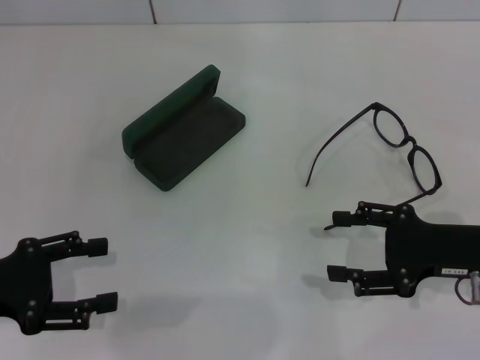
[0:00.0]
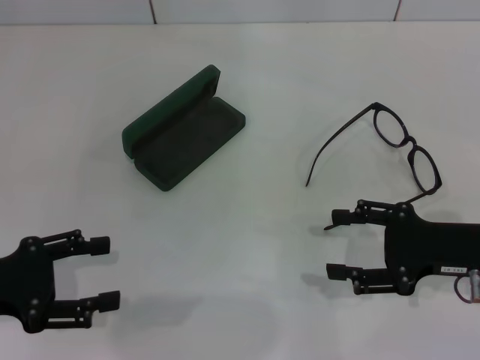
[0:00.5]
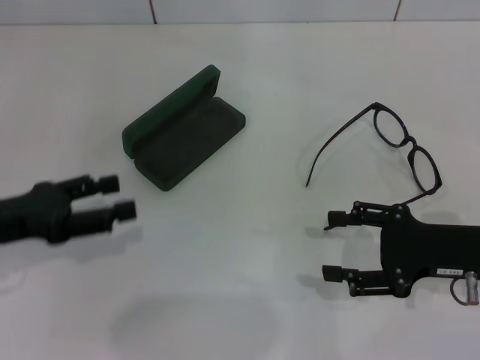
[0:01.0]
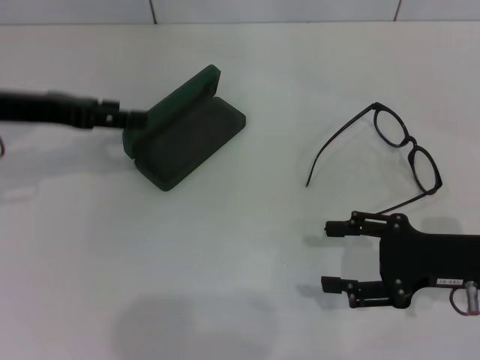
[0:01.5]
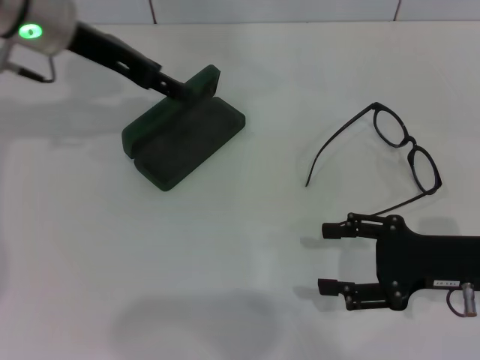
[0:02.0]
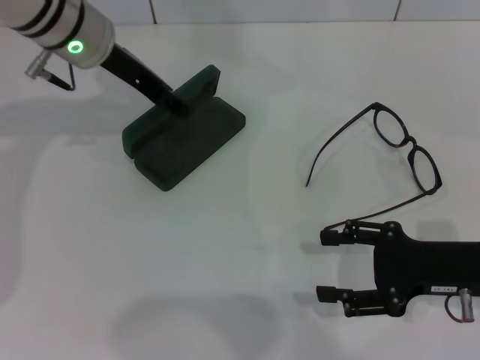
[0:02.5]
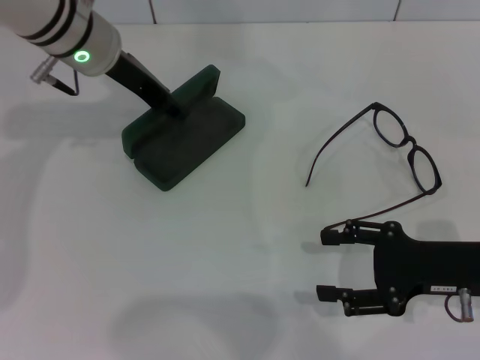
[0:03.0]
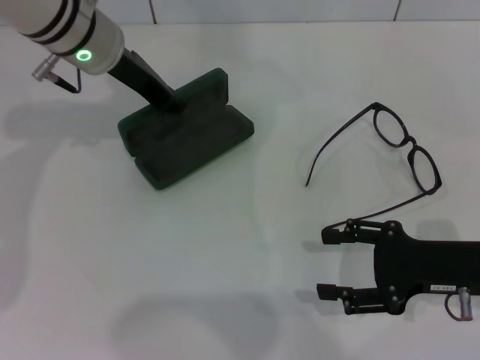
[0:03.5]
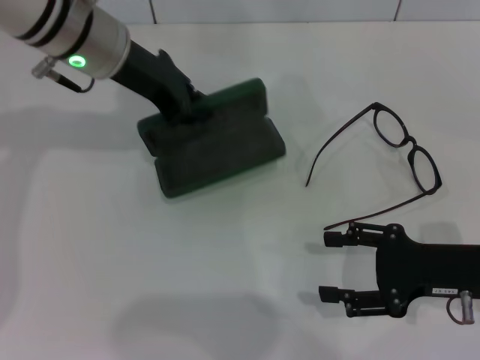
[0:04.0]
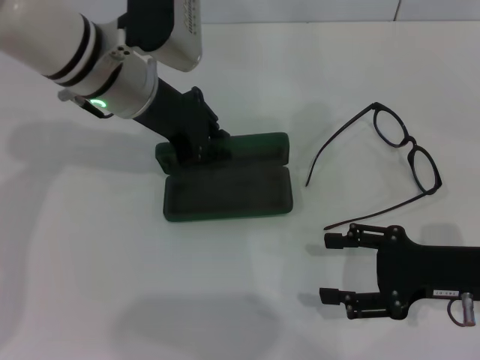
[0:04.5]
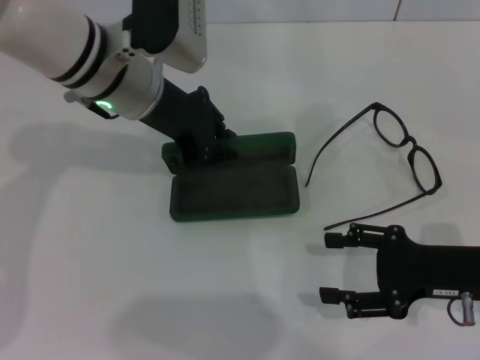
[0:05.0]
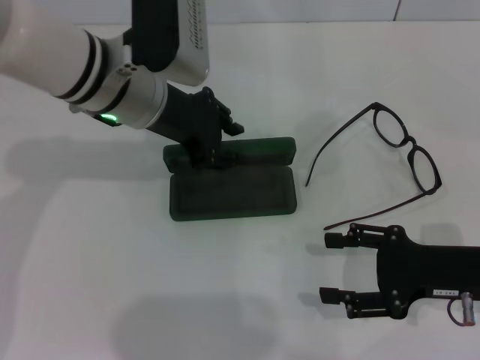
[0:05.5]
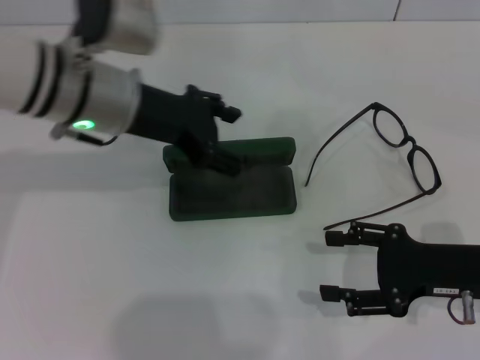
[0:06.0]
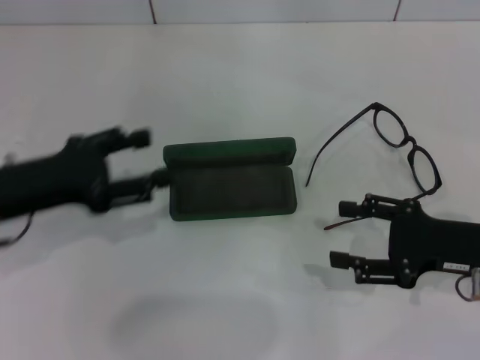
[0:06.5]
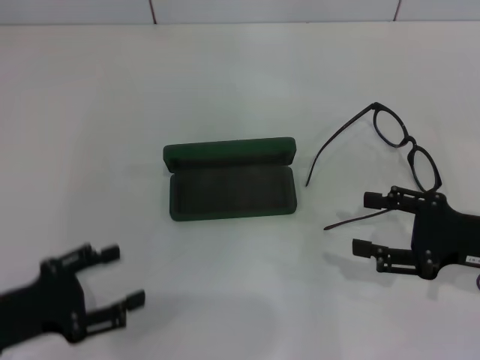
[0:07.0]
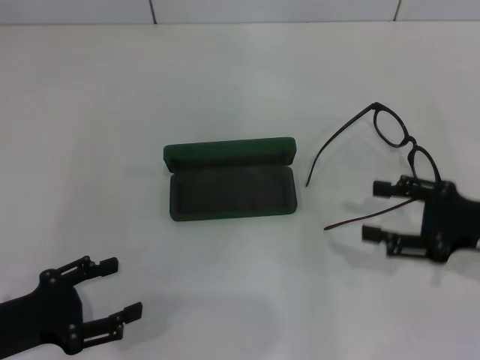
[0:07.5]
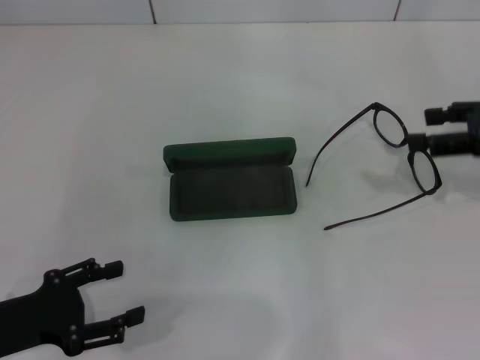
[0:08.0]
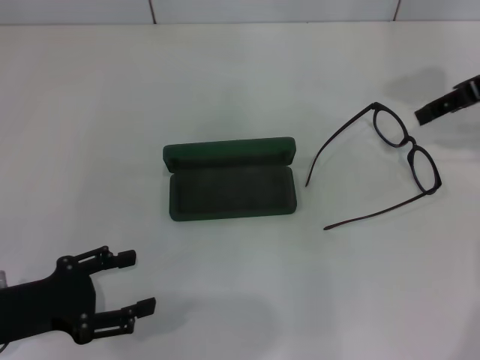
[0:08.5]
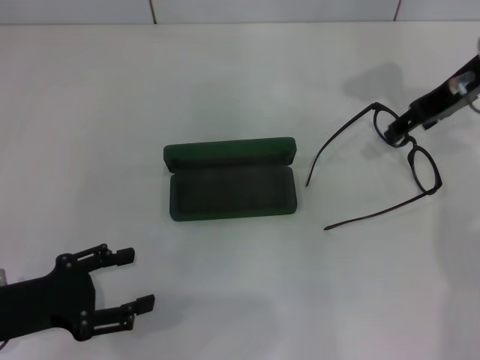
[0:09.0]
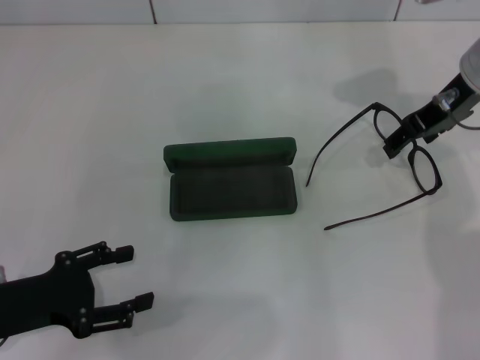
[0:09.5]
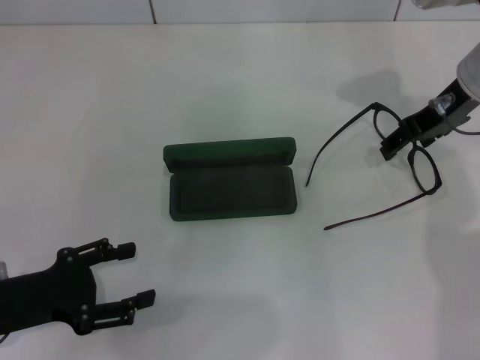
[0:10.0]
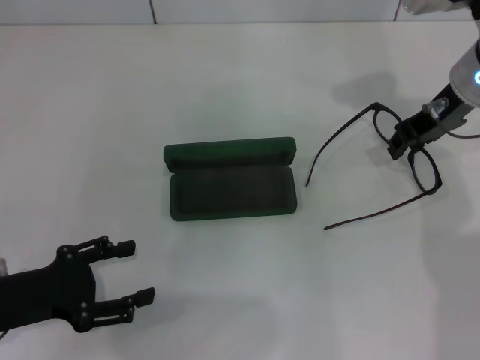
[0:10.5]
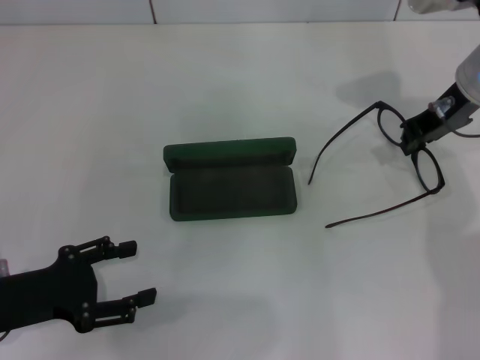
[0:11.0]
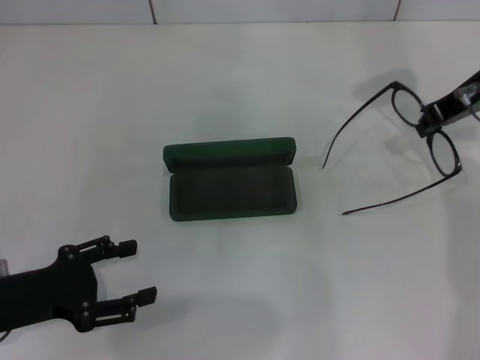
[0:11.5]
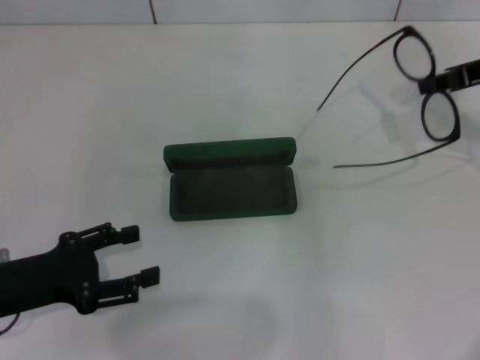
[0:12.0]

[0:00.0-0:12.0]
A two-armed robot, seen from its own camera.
Step, 0:00.0 to 0:03.0: Grab the glasses case with your left hand.
Step, 0:03.5 to 0:05.5: Place the glasses case in the center of the table with your left hand.
Step, 0:06.0 to 0:10.5: Grab the eyeglass frame with your right hand.
0:00.0 to 0:02.0: The left gripper is displaced forward, to the right and upward by about 30 cm.
0:02.0 to 0:04.0: The left gripper closes.
0:04.0 to 0:06.0: The left gripper travels backward by some 5 cm, and opens up.
0:06.0 to 0:08.0: The right gripper heads upward, forward and to the right, covering roughly 15 cm, while the left gripper is displaced backward, to the left and downward by roughly 25 cm.
0:08.0 to 0:10.0: The right gripper heads to the left and forward, covering about 15 cm.
0:10.0 to 0:12.0: The right gripper heads to the right, covering about 10 cm, and closes up.

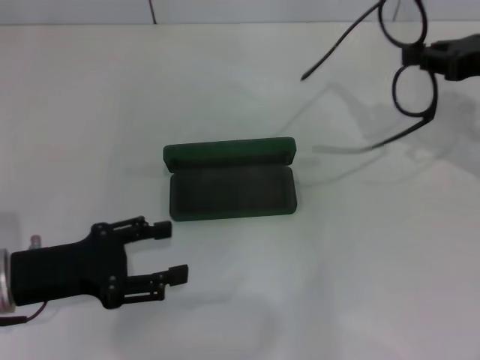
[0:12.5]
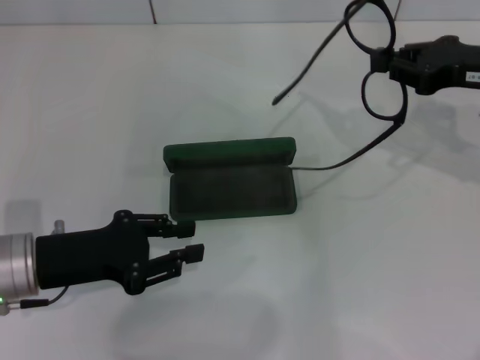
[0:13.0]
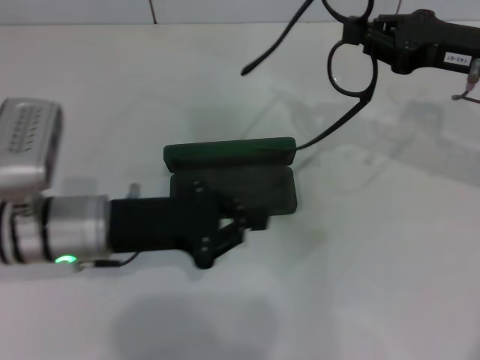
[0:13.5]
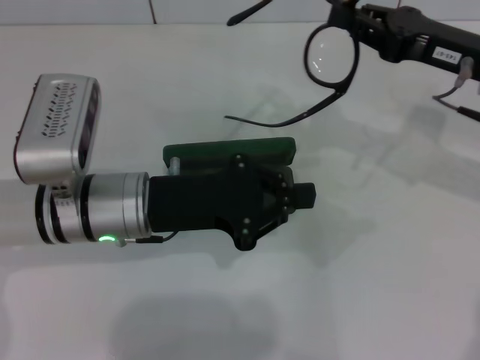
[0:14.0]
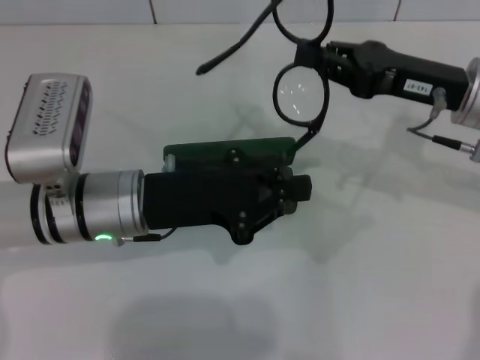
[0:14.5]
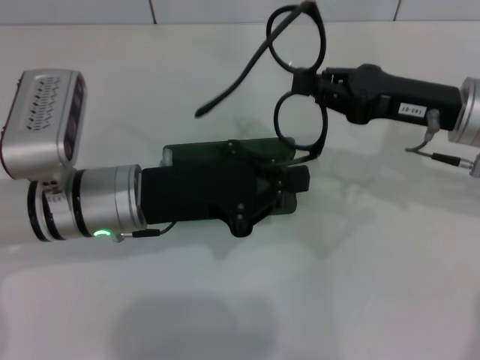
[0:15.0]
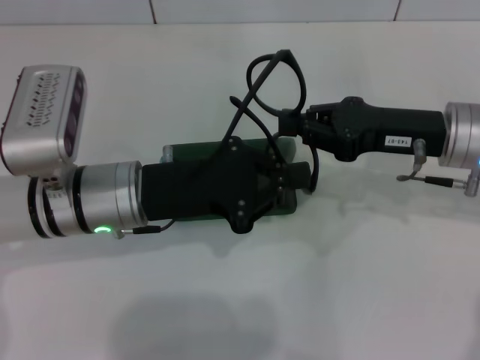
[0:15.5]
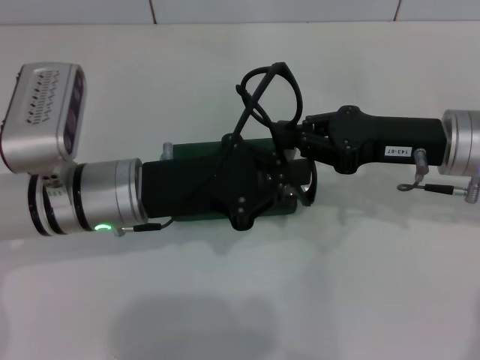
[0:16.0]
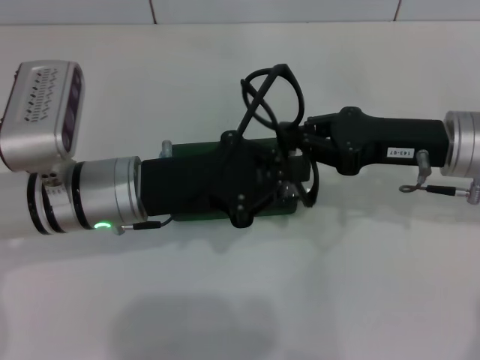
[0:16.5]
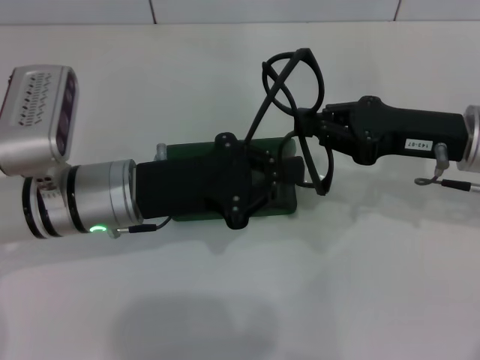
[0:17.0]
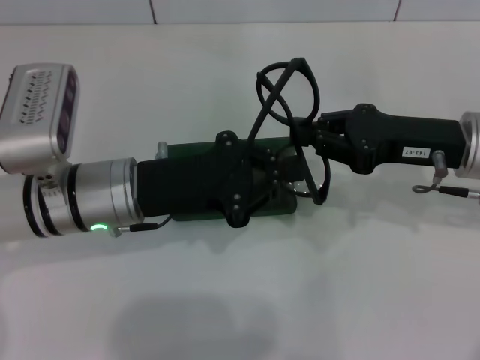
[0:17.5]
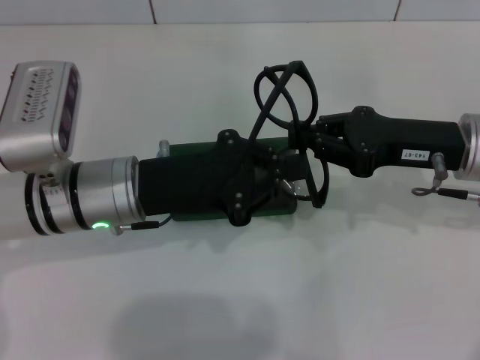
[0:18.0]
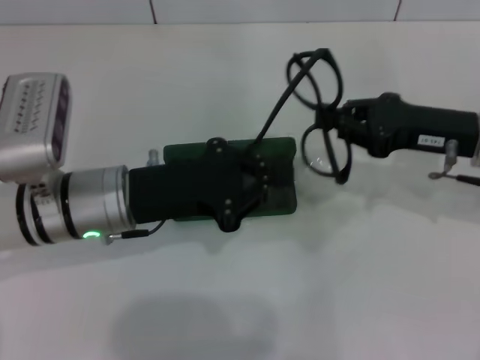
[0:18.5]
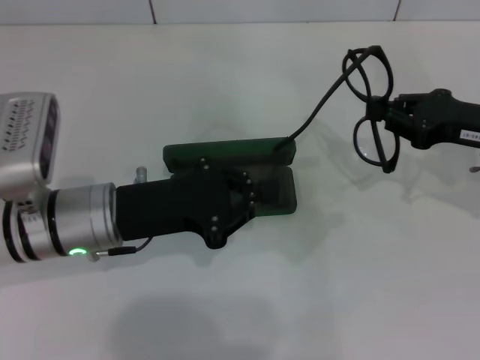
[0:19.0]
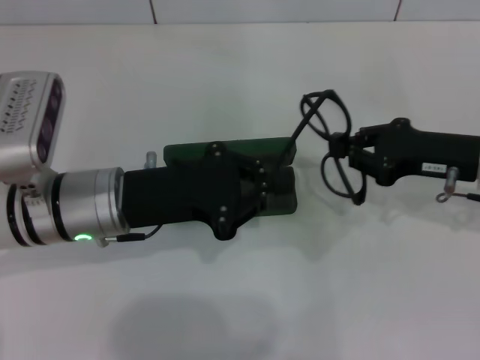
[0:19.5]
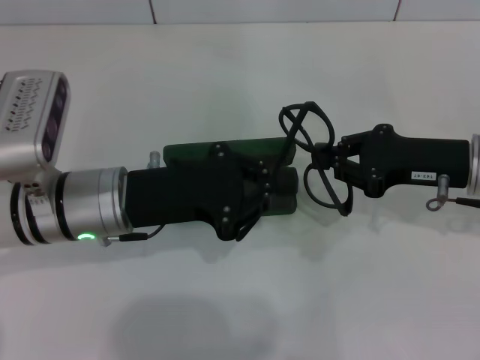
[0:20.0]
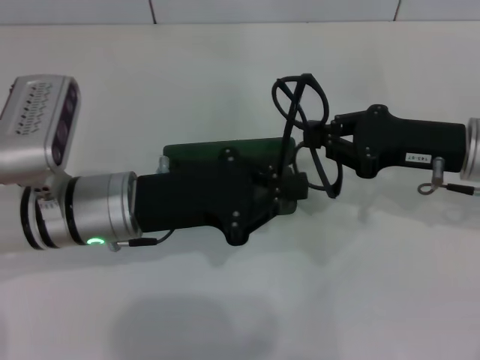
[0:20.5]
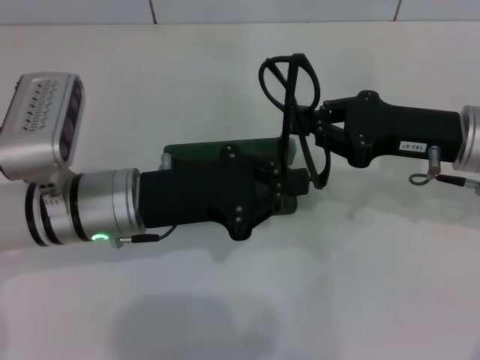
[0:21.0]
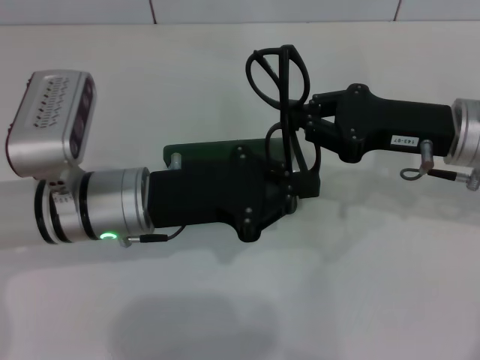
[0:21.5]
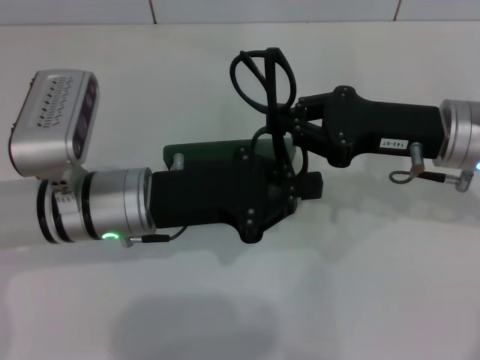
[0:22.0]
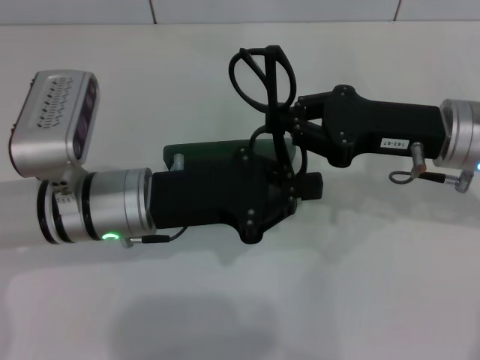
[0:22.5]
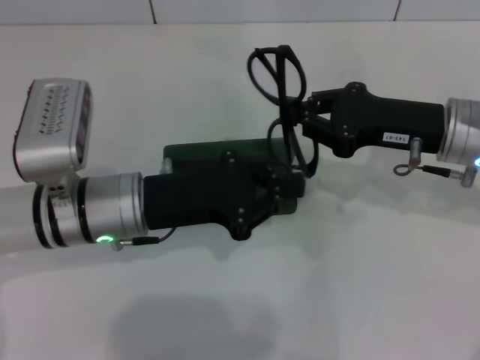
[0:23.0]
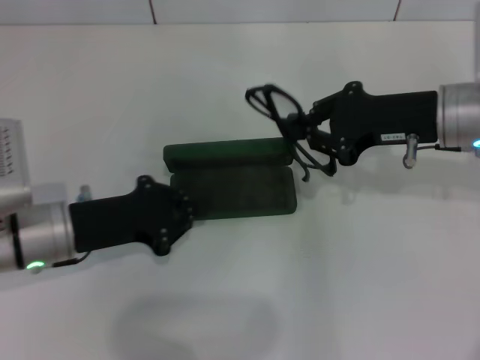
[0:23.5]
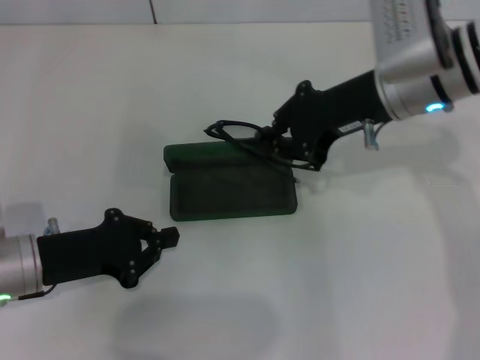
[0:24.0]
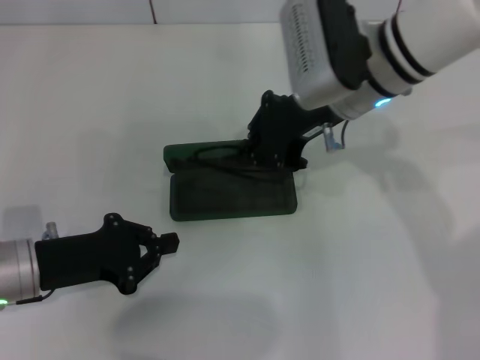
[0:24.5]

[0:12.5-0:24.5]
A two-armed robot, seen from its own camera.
Step, 0:12.5 to 0:22.0: Fold the frame with your left hand.
0:12.5 to 0:14.5: The left gripper goes approximately 15 cm to the right and forward, and closes, while the right gripper travels to the left by some 10 cm.
0:16.5 to 0:18.5: The grippers stay close to where they were, moving slightly.
0:18.5 to 0:22.5: The grippers make only small movements.
0:22.5 to 0:24.5: The right gripper heads to the left and forward, covering approximately 10 cm. The left gripper is displaced to the left and downward by about 15 cm.

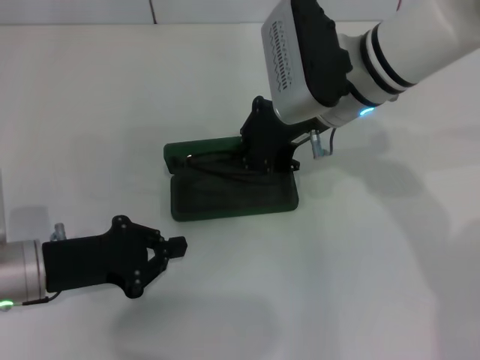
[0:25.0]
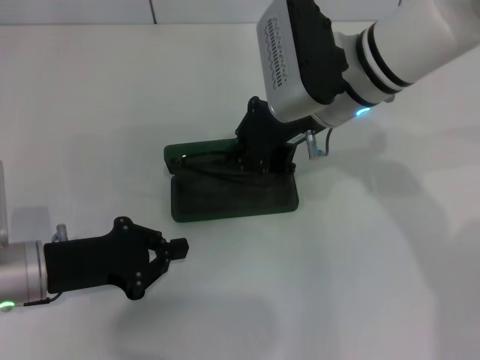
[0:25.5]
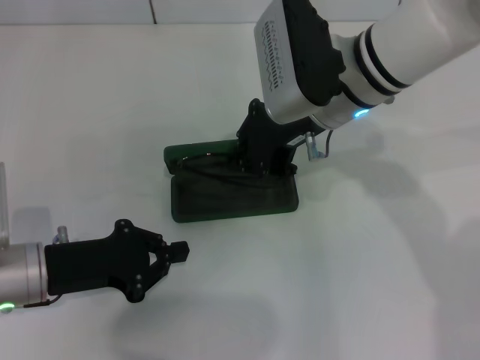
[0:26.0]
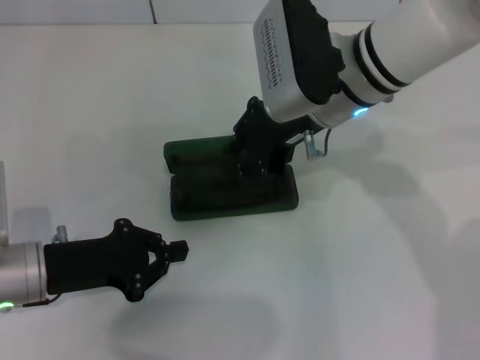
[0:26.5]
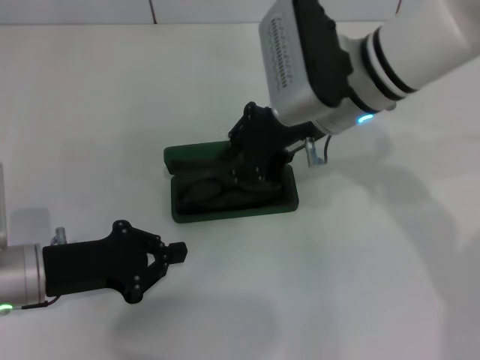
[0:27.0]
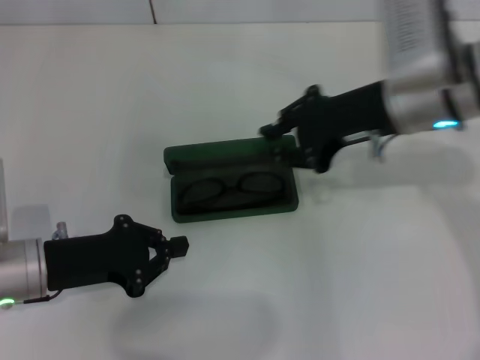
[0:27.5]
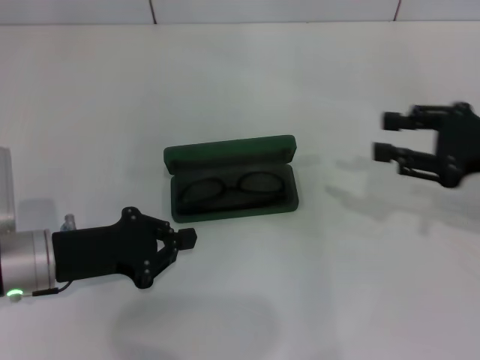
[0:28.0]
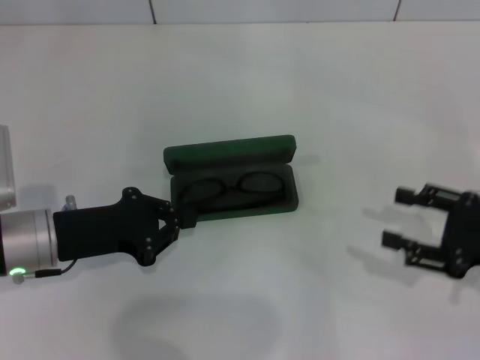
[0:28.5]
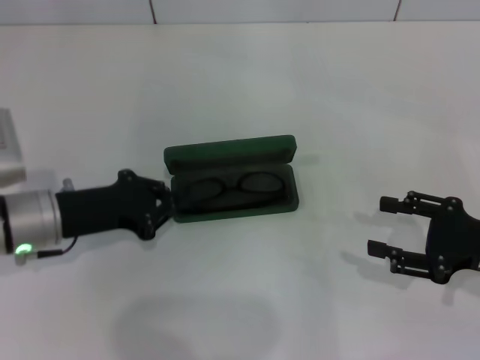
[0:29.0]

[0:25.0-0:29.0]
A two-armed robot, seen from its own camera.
0:25.0 to 0:27.0: The grippers move only a little.
0:27.0 to 0:29.0: The right gripper travels to the right, downward and backward by approximately 30 cm, and opens its fingers.
